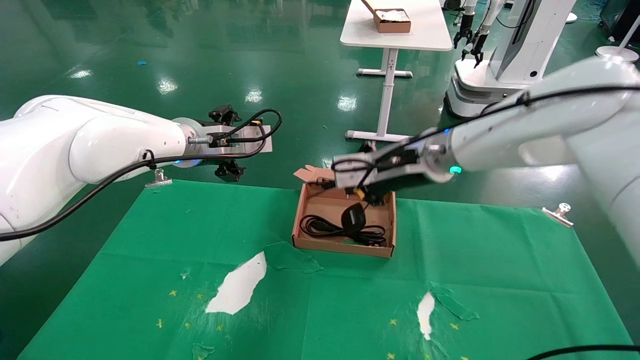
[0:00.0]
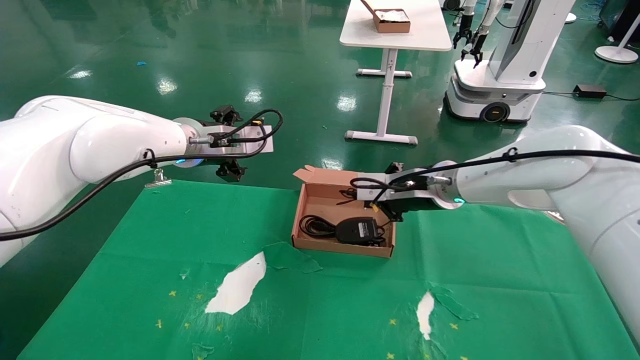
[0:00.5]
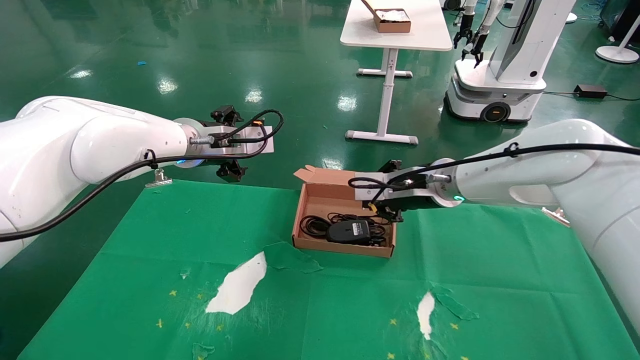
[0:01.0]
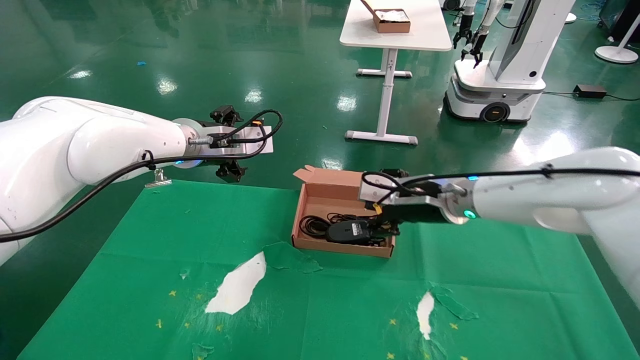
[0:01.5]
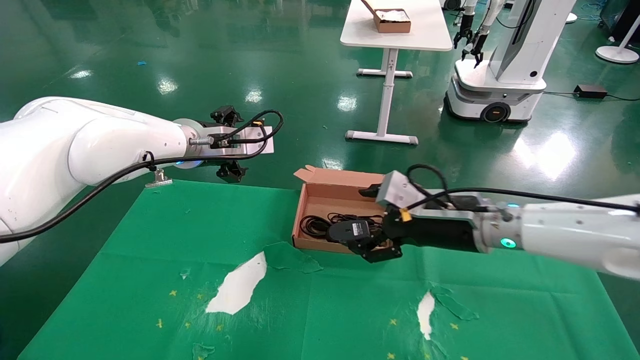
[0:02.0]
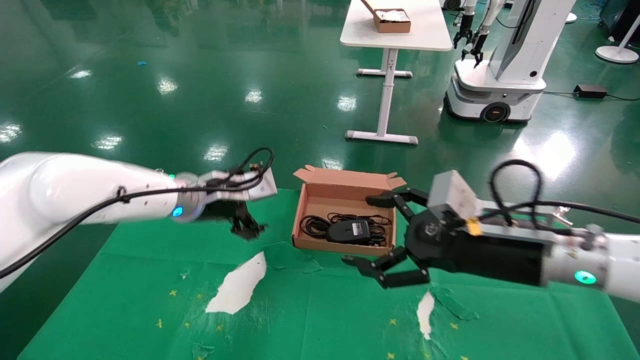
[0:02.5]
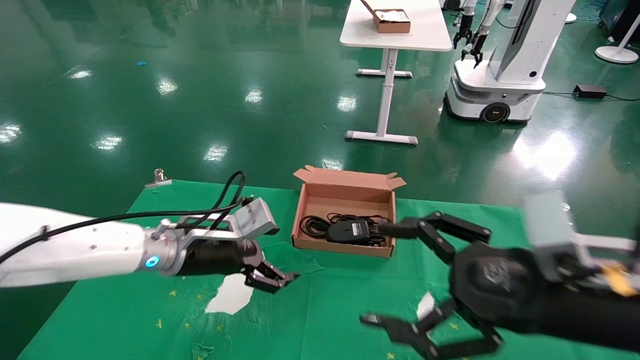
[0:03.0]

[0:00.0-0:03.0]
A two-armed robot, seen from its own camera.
0:00.0 to 0:01.5: The right gripper heads downward, covering about 5 cm, and opens up.
0:01.5 to 0:03.0: The right gripper travels backward by some 25 cm, and opens; the left gripper heads downward and backward, covering approximately 15 cm.
